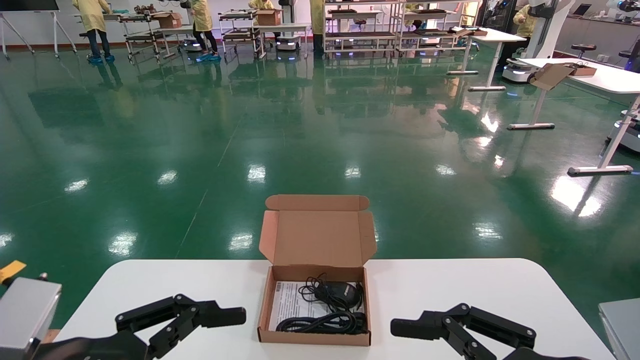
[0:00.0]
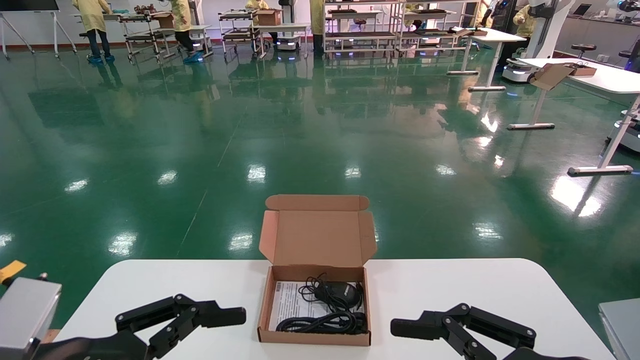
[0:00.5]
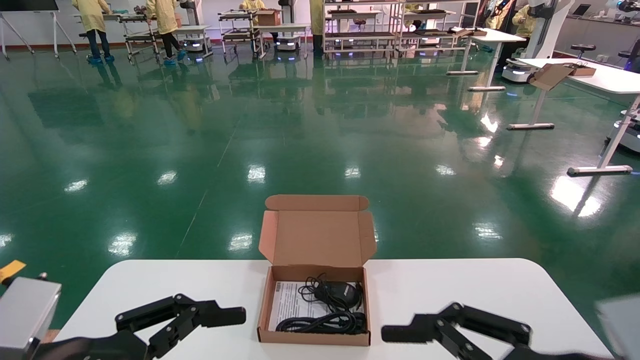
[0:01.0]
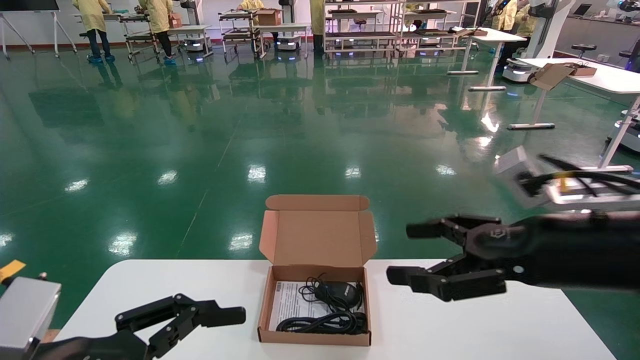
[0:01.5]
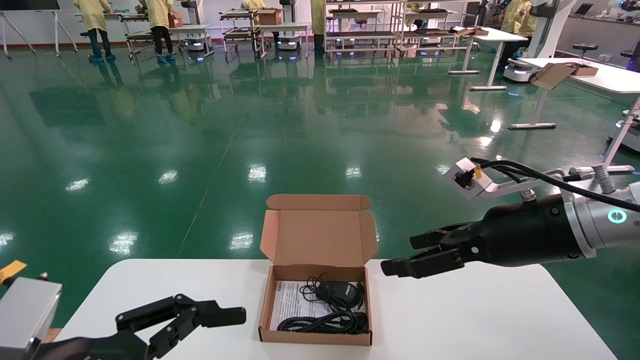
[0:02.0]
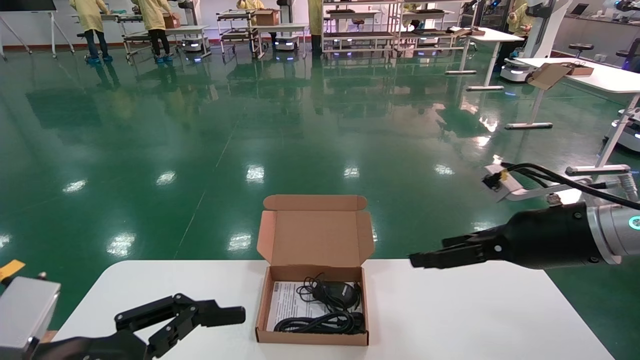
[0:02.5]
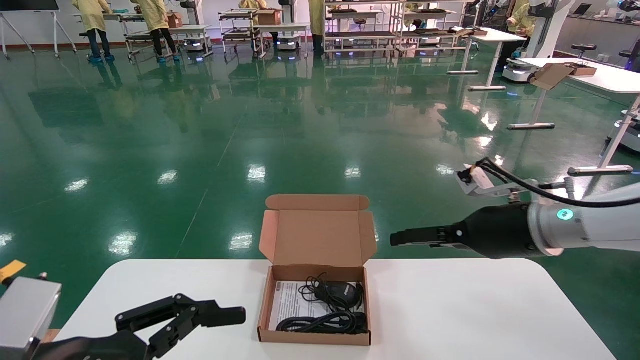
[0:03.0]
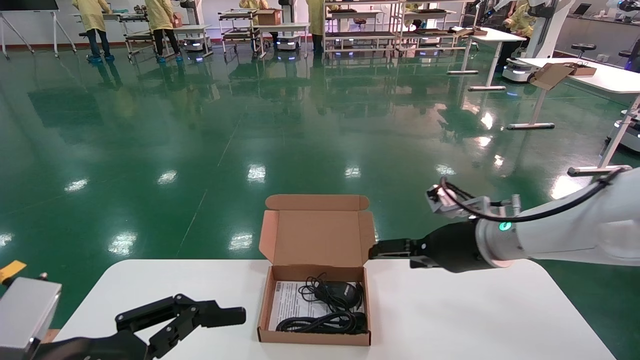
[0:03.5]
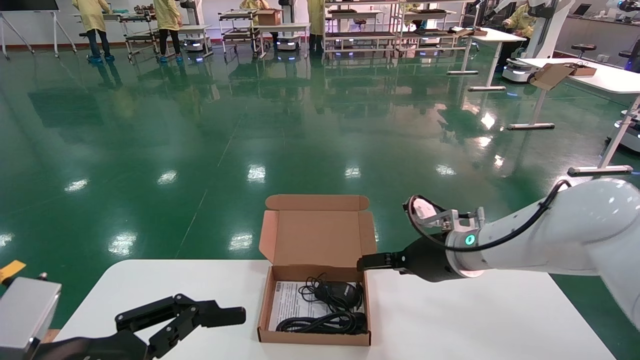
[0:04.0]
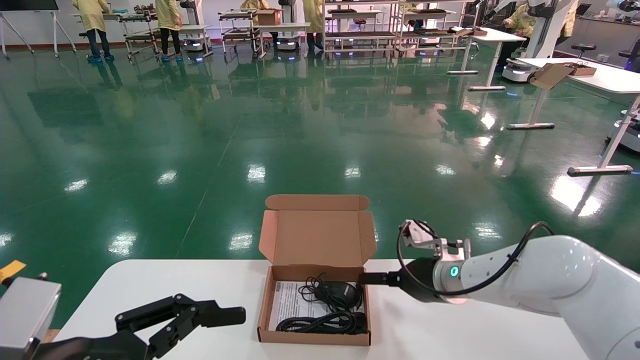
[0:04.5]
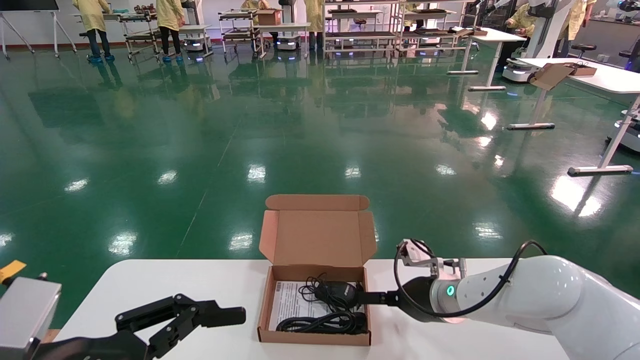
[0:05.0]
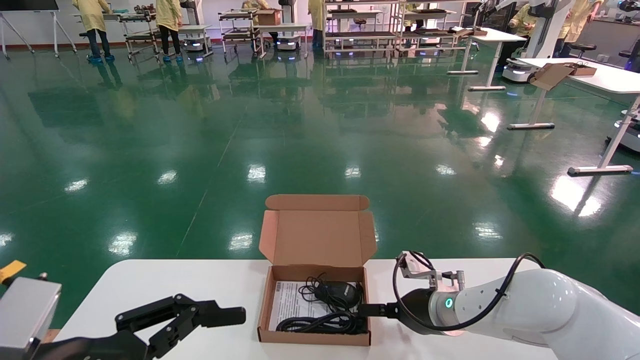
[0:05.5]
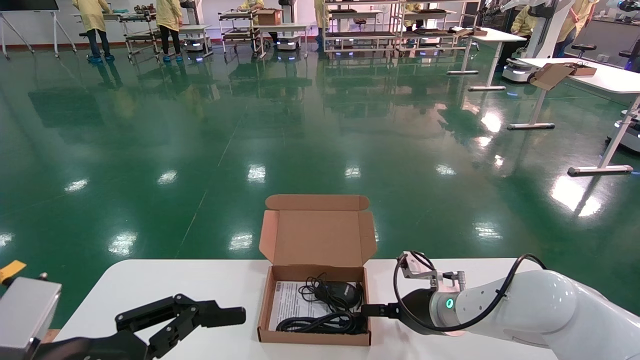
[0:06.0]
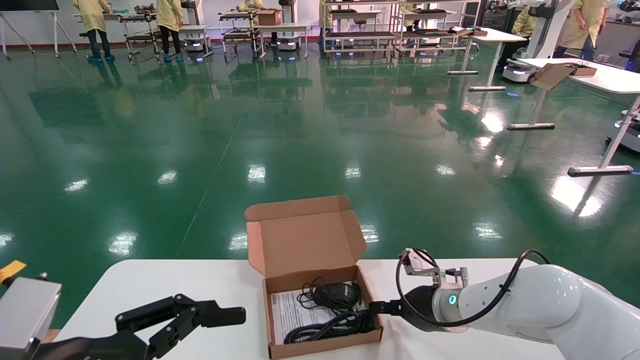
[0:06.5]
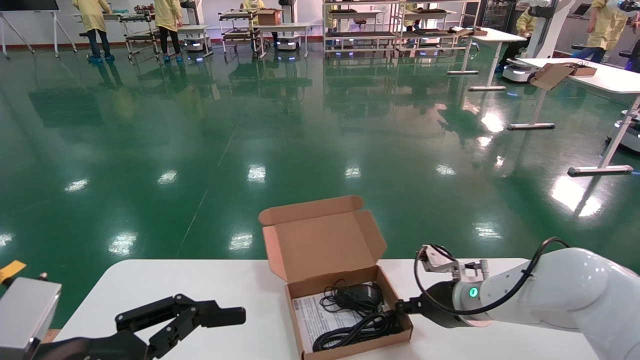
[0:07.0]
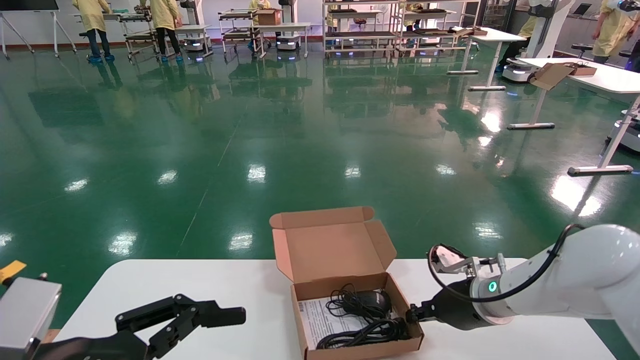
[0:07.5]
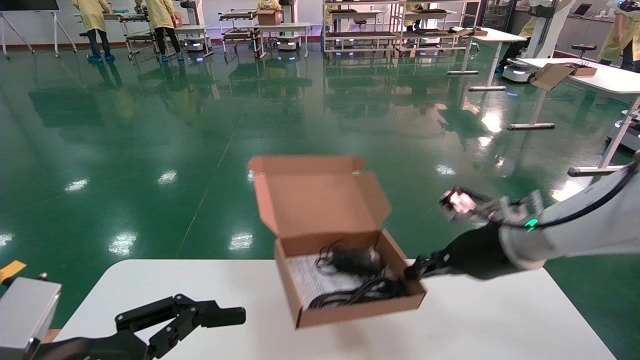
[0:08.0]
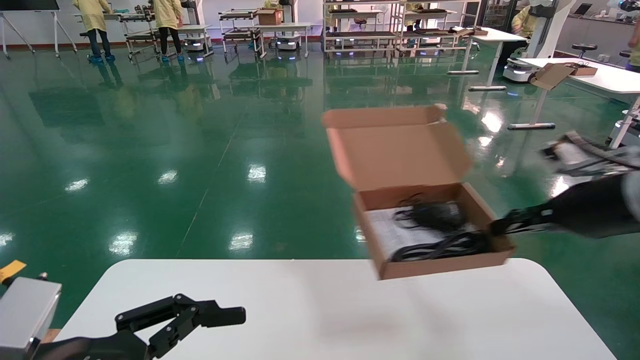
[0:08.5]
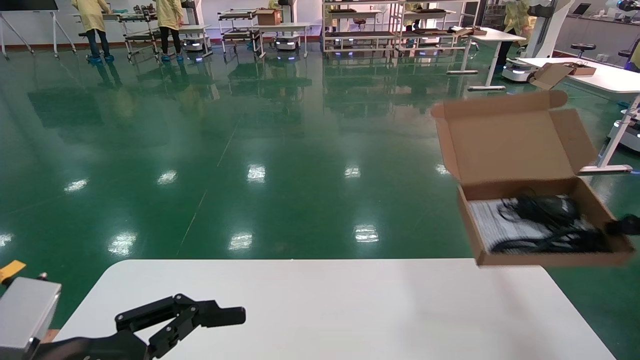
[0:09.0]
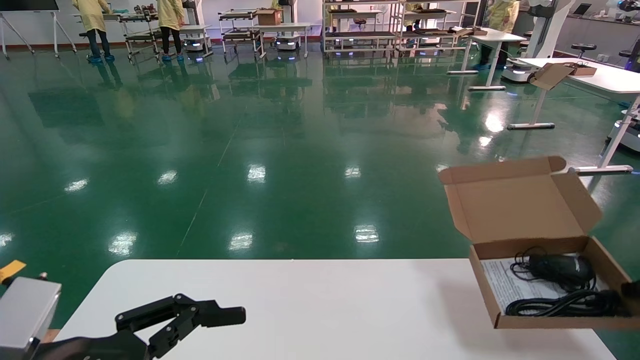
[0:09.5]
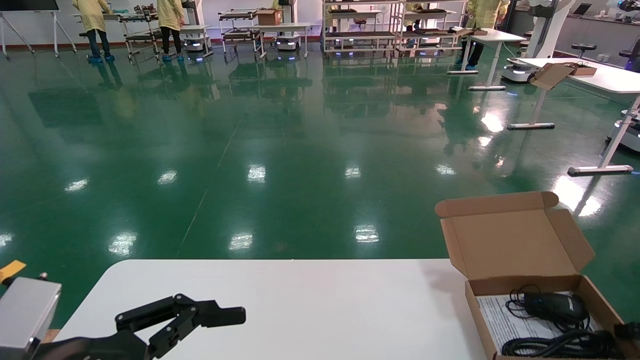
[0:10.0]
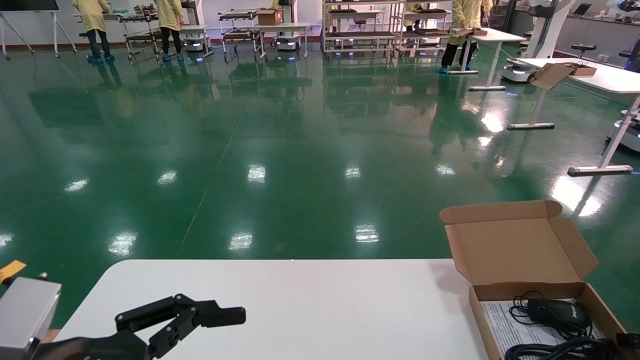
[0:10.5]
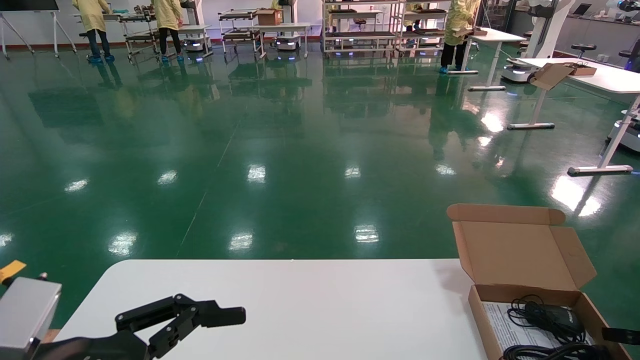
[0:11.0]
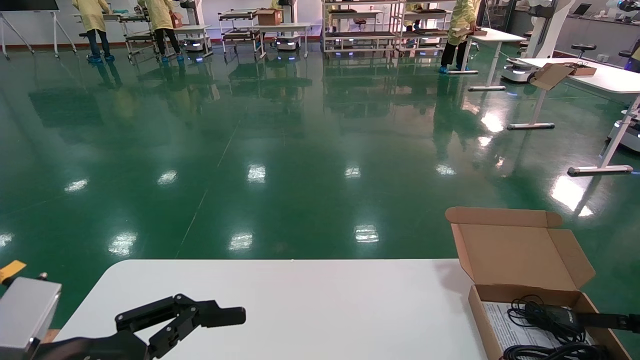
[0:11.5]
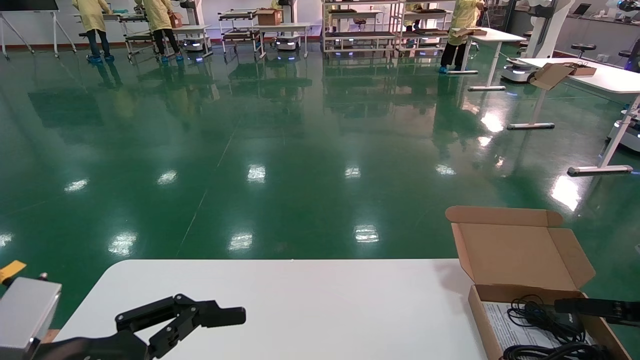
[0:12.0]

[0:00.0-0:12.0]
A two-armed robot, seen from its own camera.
Task of the whole recording: move the position of the storage box with accessories on the table.
Step, 0:01.5 to 0:07.5: Grab and pick up the open mouse box from the accessory packaging area.
Step, 0:08.0 to 0:11.0: Place the open mouse box onto the operation table.
0:00.0 to 0:02.0: The right gripper moves forward and upward, some 20 cm.
0:02.0 to 0:04.0: The right gripper goes some 15 cm forward, to the left and downward.
0:04.0 to 0:06.0: The right gripper shifts approximately 10 cm downward.
0:06.0 to 0:08.0: The right gripper moves upward, to the right and backward, about 15 cm, and closes up.
0:08.0 to 0:10.0: The right gripper goes roughly 25 cm to the right.
0:10.0 to 0:12.0: The right gripper opens up.

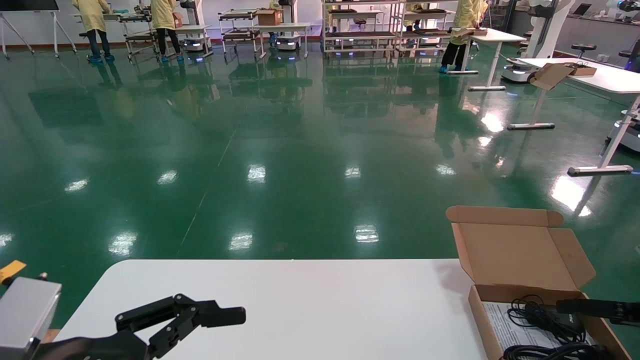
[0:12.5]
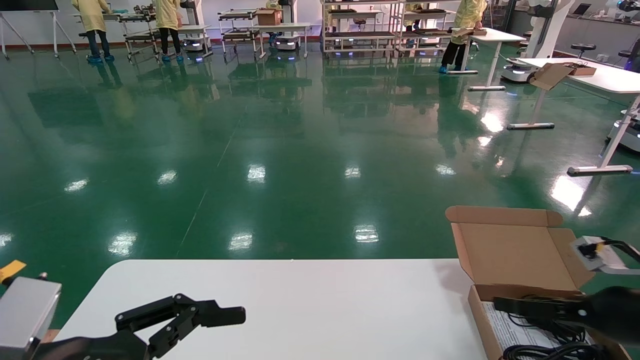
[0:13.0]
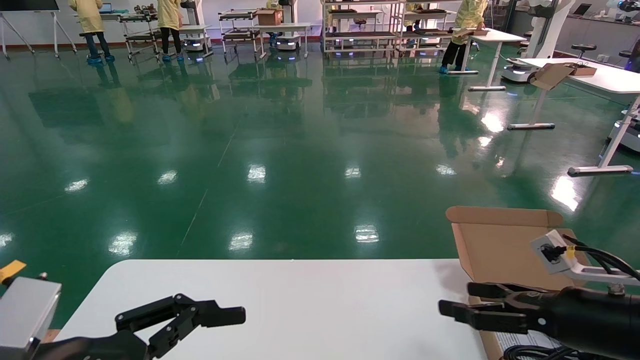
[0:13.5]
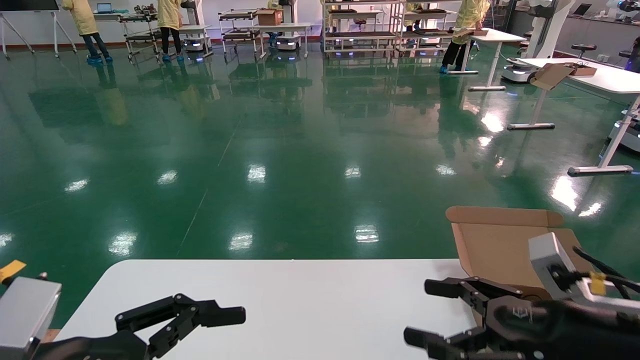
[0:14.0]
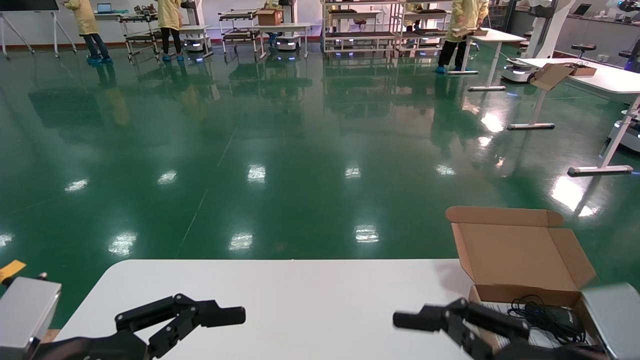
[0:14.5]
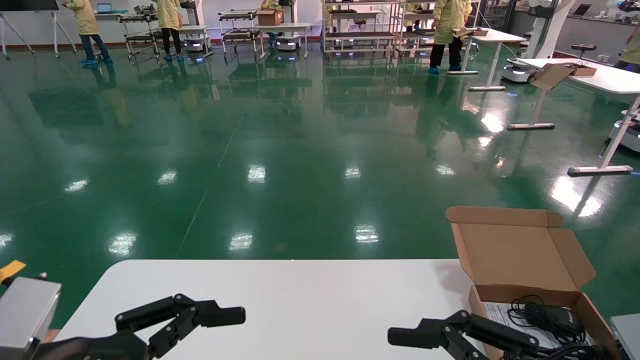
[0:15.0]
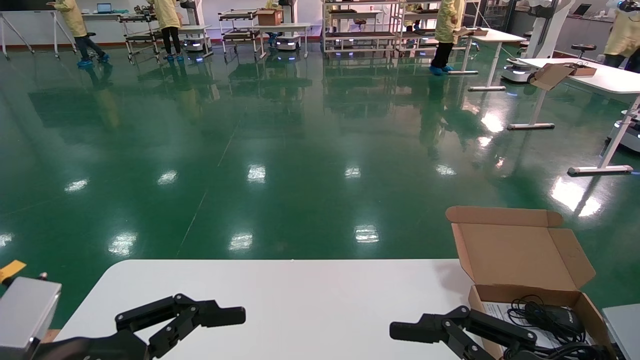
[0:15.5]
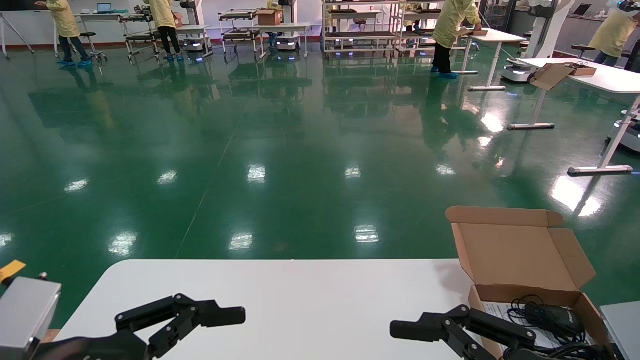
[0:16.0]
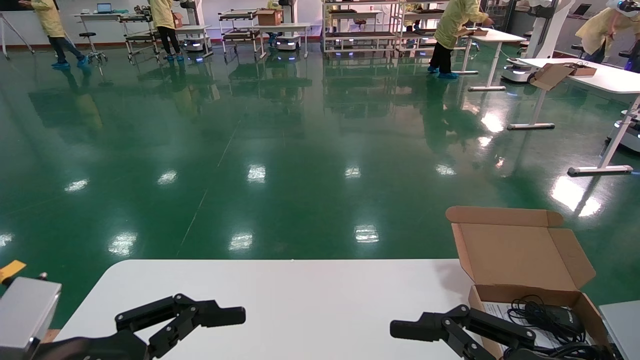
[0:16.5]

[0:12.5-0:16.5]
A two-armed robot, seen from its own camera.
Task of the whole recording: move the position of the storage box with accessories on the table.
0:12.5 to 0:14.5: The right gripper shifts some 25 cm to the left and backward.
0:14.5 to 0:16.5: The grippers move only a little.
